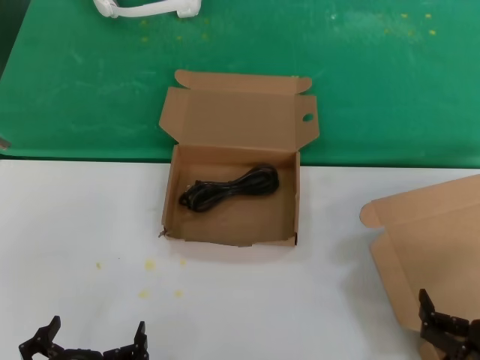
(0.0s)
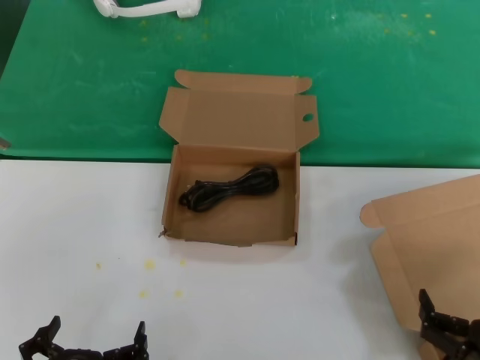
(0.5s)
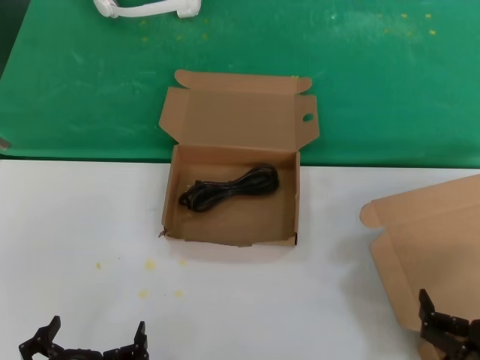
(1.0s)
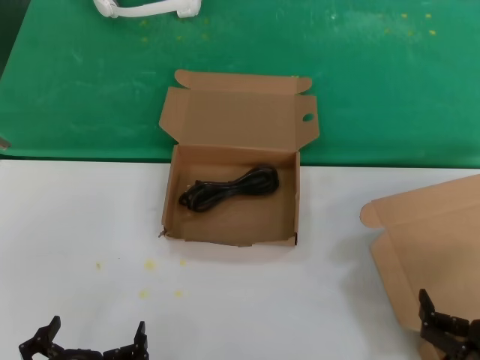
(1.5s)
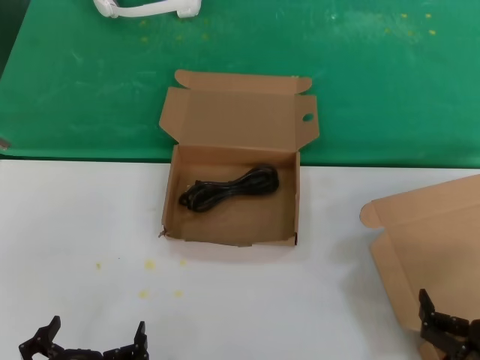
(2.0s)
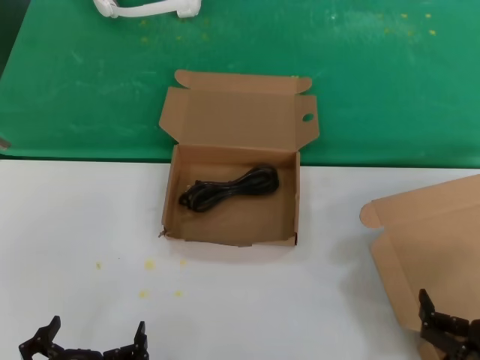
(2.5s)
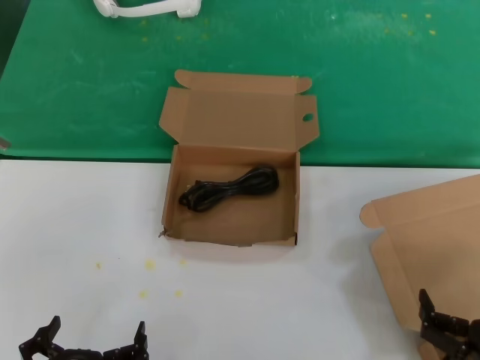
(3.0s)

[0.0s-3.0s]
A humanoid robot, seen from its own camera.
Task of the whole recording: take the parts from the box containing them and put them into an empty box.
0.0s to 3.0s: The two hands keep their place.
